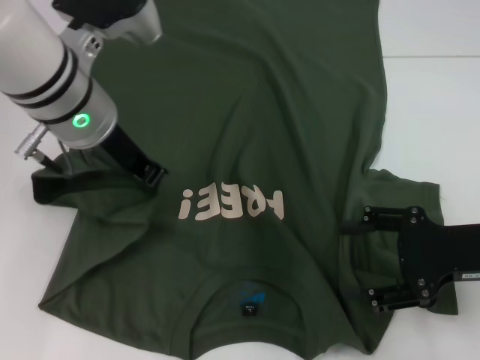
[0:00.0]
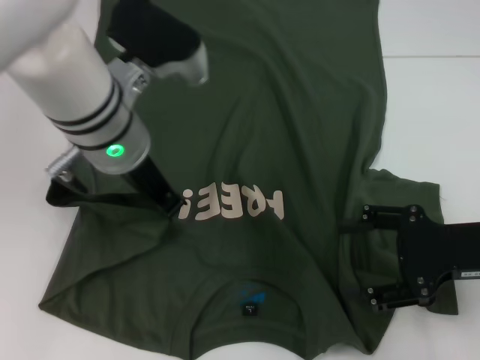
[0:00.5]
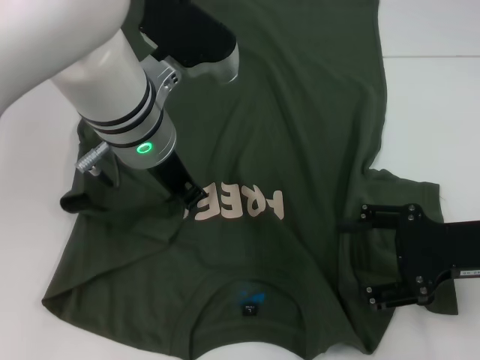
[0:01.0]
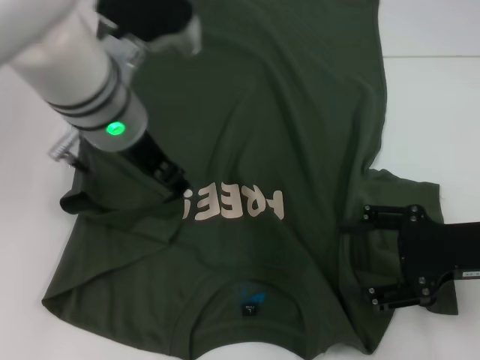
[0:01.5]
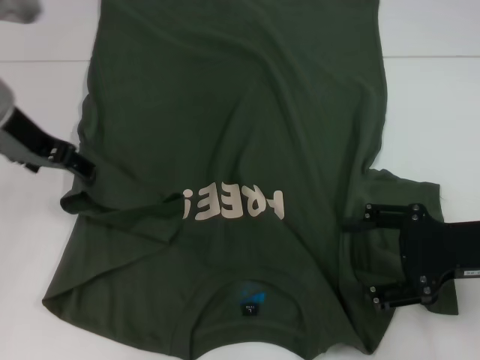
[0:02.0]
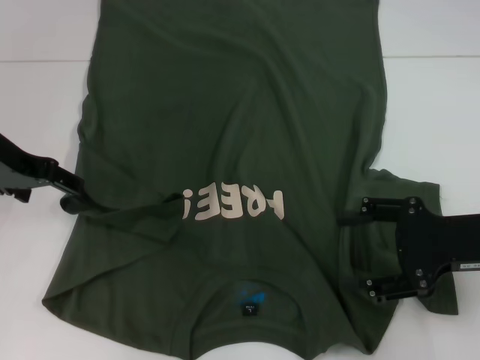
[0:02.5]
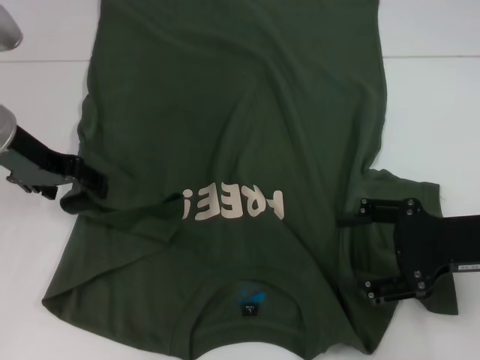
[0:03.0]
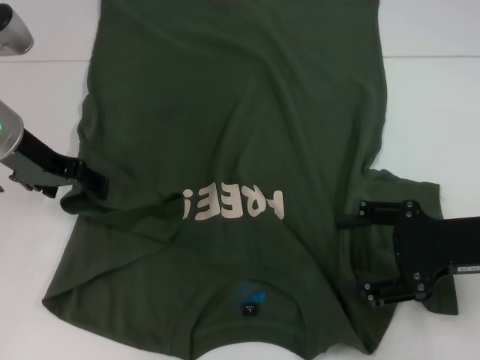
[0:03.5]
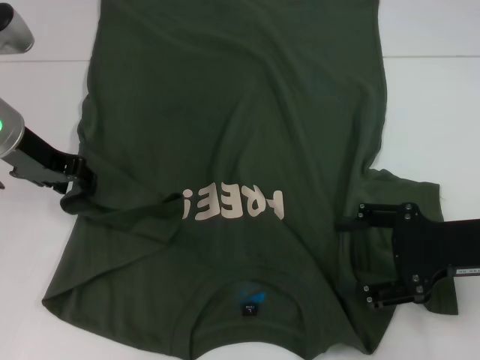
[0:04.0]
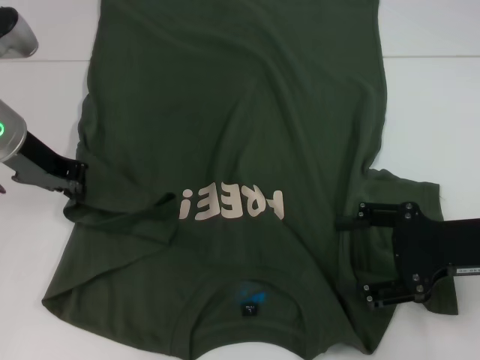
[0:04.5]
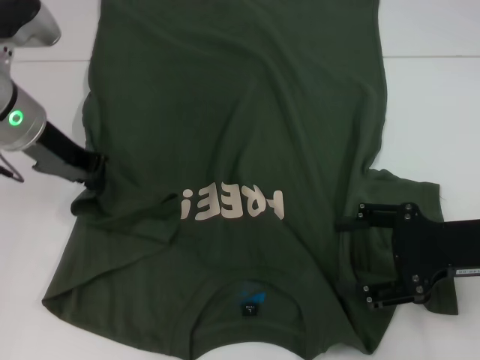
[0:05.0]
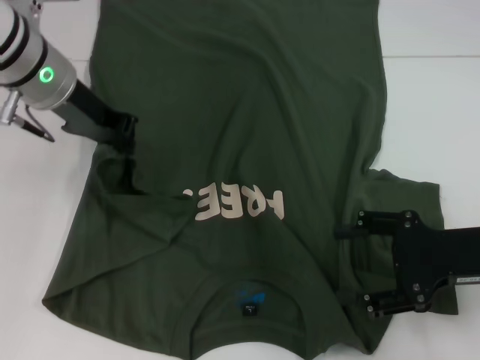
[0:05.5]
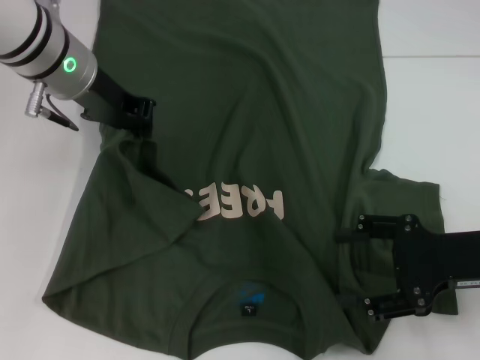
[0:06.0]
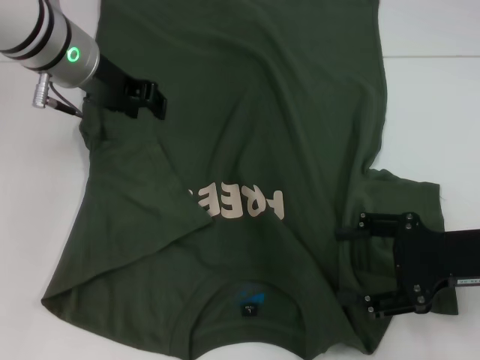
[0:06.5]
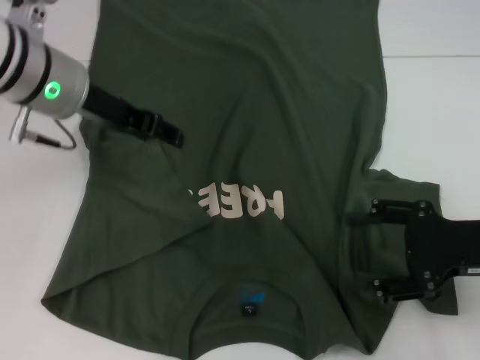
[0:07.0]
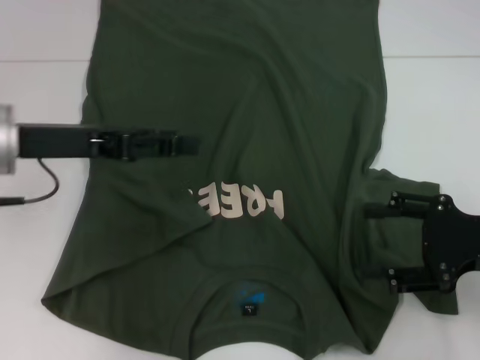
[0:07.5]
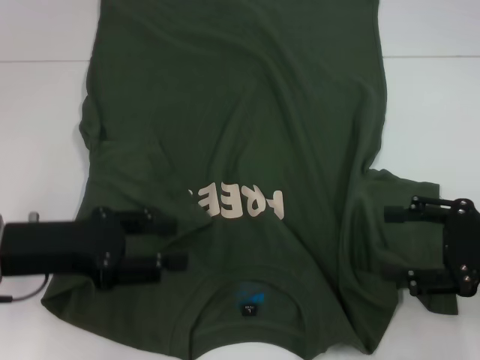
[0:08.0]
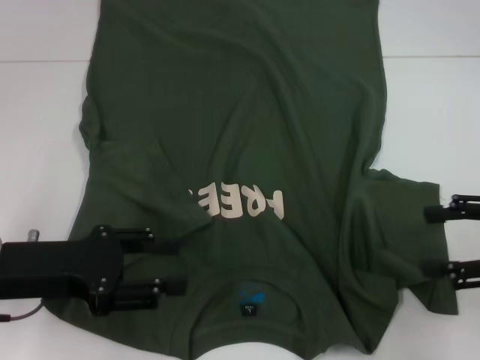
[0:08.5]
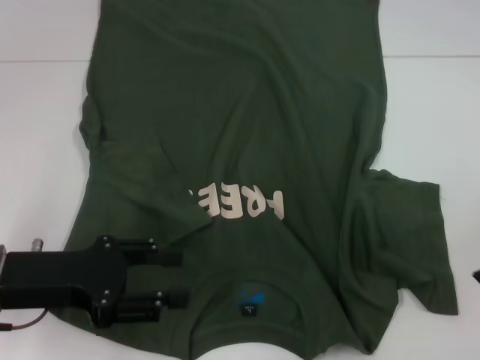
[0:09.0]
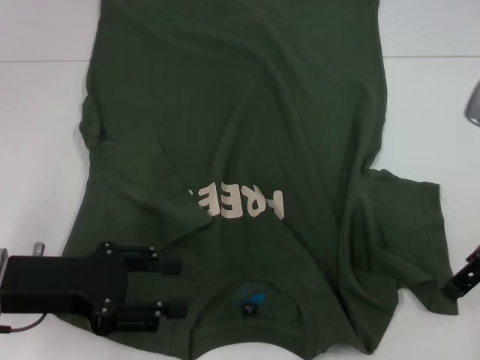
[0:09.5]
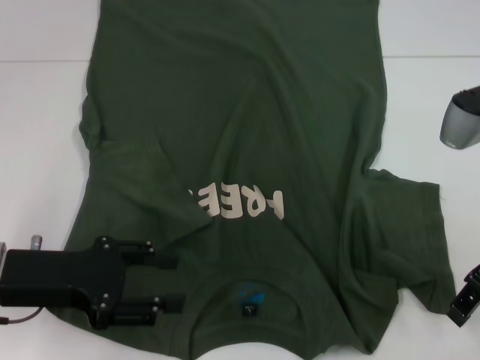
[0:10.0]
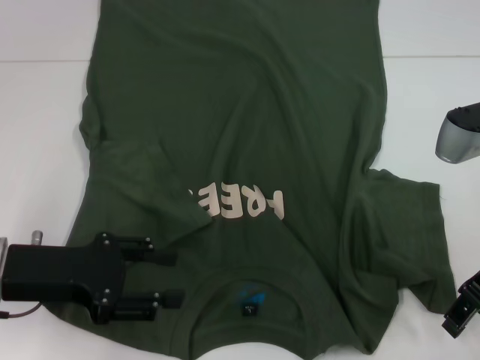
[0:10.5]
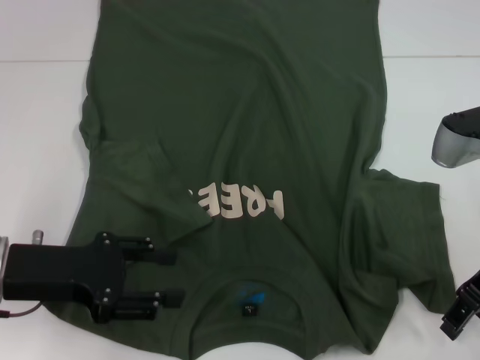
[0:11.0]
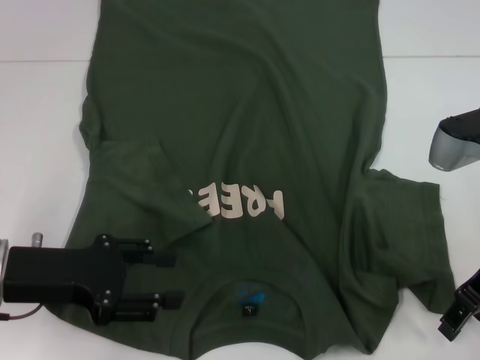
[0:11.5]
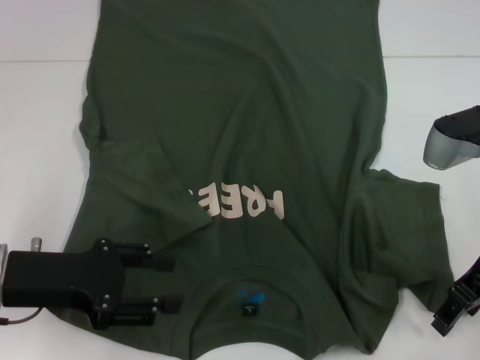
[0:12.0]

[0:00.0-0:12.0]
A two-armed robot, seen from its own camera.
Step, 0.0 to 6.5 s: Fold the bottom left sleeve with your left hand.
0.0 to 2.0 s: The left gripper moves to the left, about 10 cm, and opens up.
2.0 to 4.0 s: The left gripper moves about 5 cm.
4.0 to 6.0 s: The left gripper goes approximately 5 cm to the right, and closes its fingers.
6.0 to 8.0 s: The left gripper is displaced backward, to the left and downward by approximately 20 cm, and opens its fingers.
8.0 to 10.0 s: The right gripper is displaced forward, to the left and upward by approximately 10 cm.
10.0 to 12.0 s: The grippers move only a little.

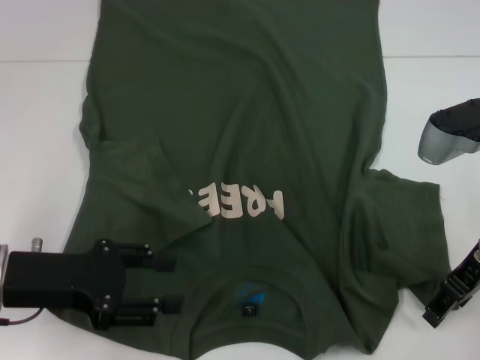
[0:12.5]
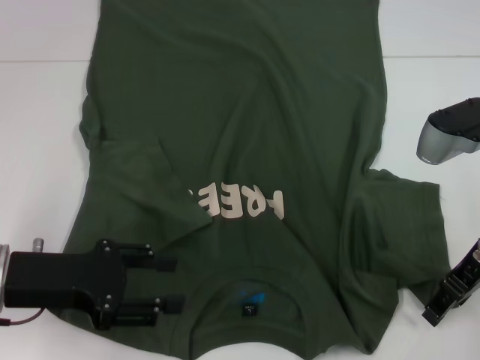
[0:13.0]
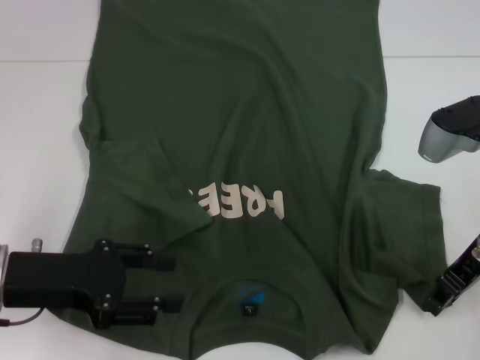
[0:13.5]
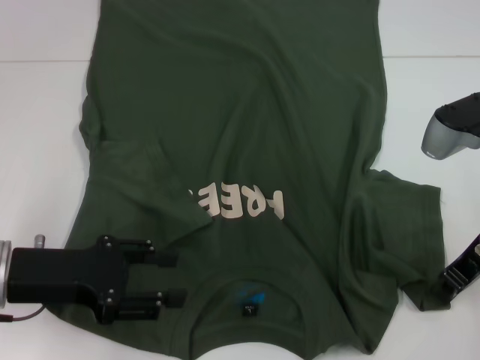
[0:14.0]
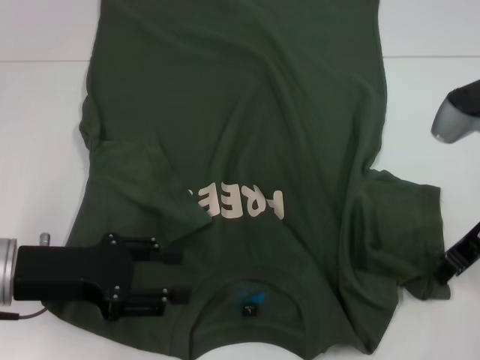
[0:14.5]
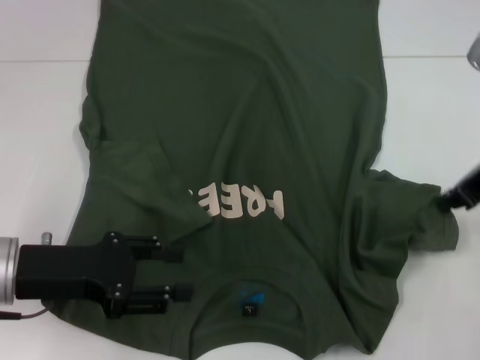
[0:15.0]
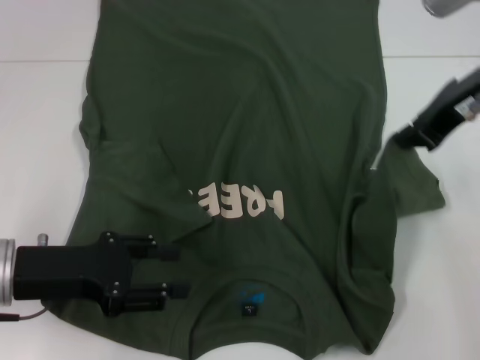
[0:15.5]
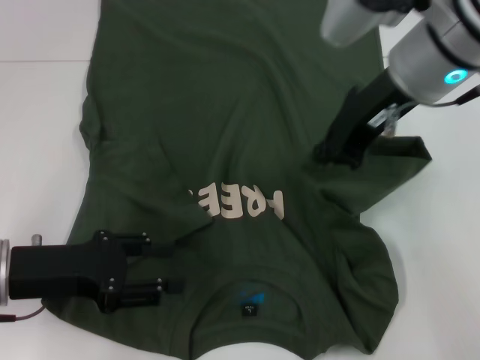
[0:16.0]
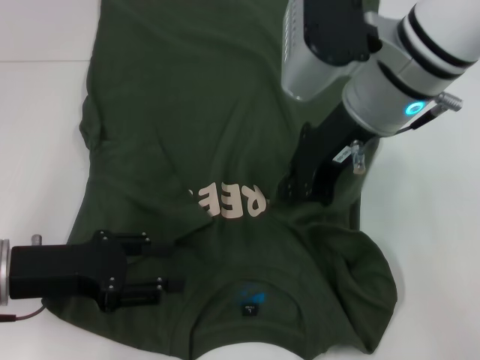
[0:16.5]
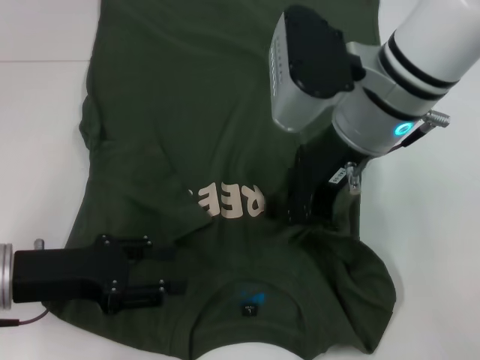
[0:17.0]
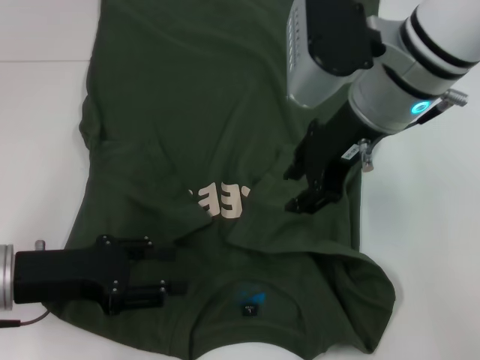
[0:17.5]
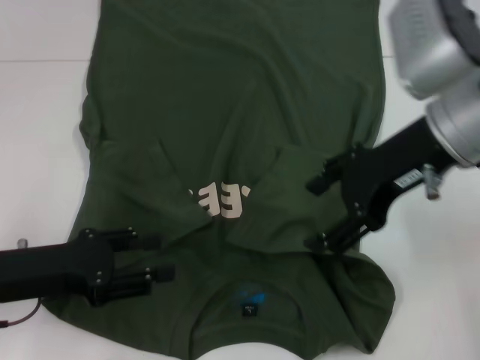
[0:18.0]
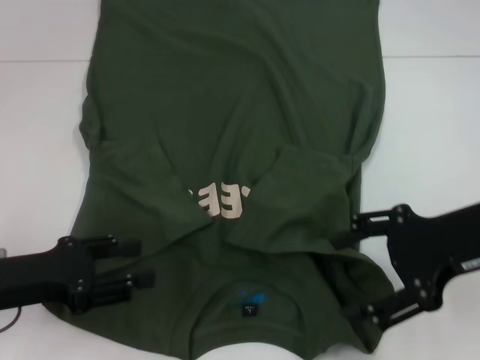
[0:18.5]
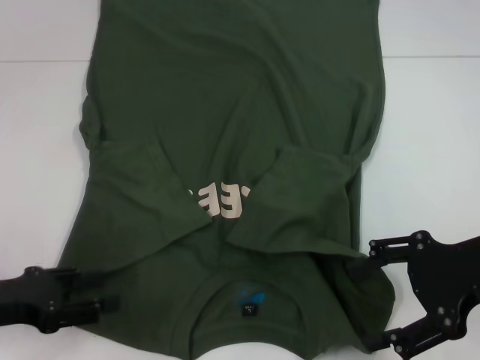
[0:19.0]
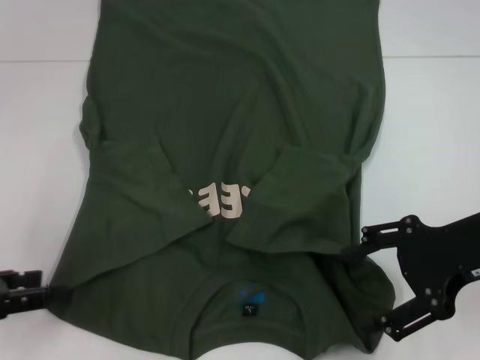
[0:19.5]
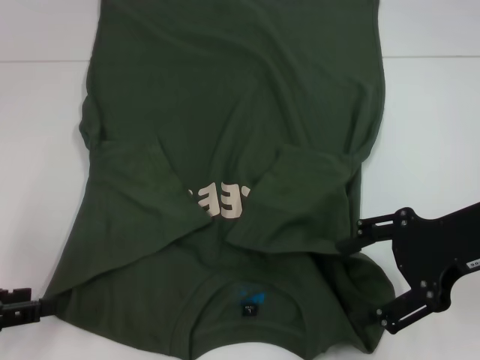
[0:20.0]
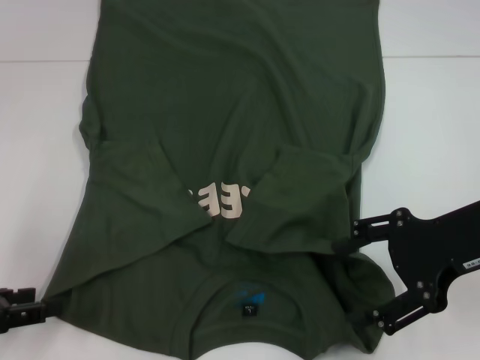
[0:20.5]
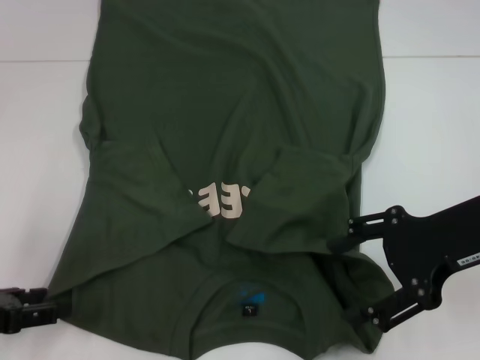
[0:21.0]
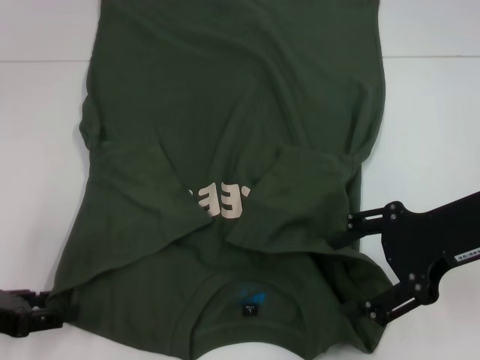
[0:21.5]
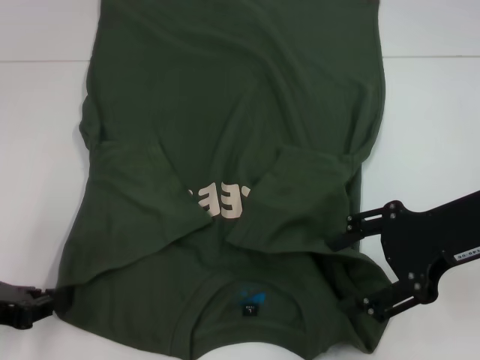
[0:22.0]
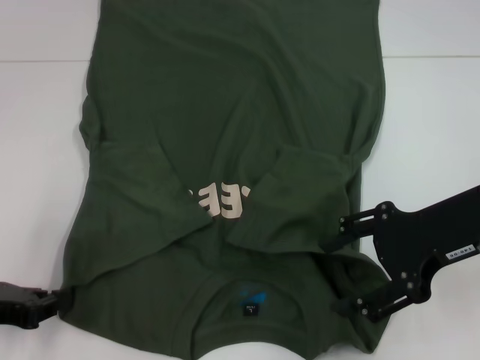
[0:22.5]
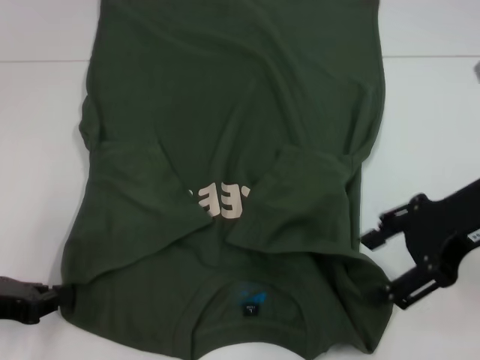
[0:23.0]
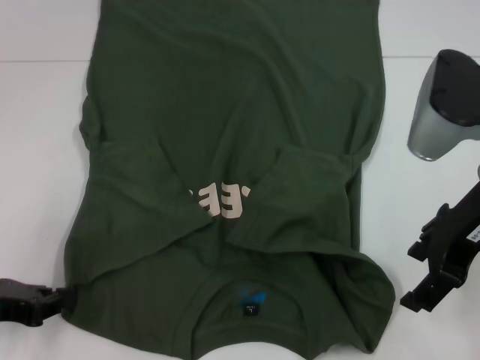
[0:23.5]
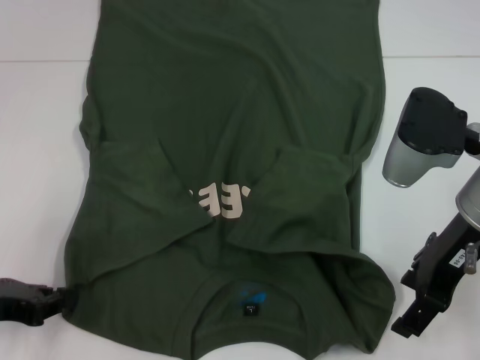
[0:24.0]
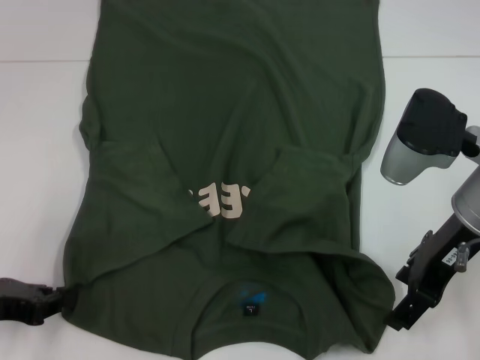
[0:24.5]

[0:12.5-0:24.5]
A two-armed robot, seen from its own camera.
Step, 12.5 to 17.5 s: Fold the bottom right sleeve with your right hand.
Step, 18.0 to 22.0 s: Grab the bottom left corner with your left hand.
12.5 to 14.5 s: The right gripper closes.
14.5 to 16.5 s: The right gripper shifts some 15 cm to the left and upward.
16.5 to 18.5 s: The right gripper goes some 15 cm to the right and backward, and opens up.
18.5 to 20.5 s: The left gripper shifts some 5 cm to the left.
20.5 to 22.5 s: The left gripper closes.

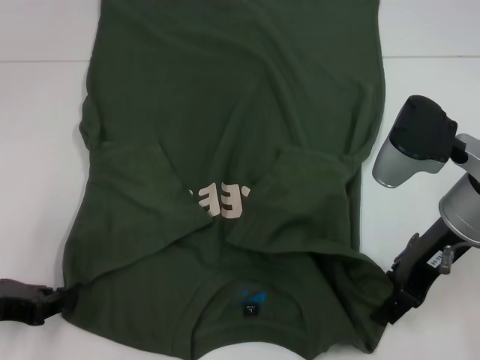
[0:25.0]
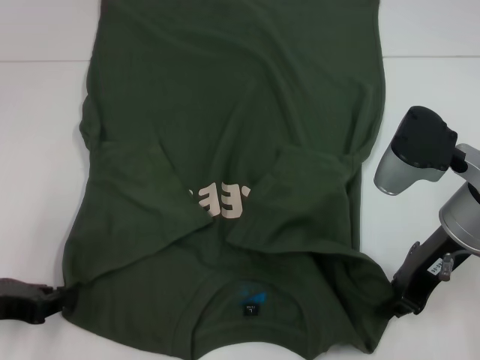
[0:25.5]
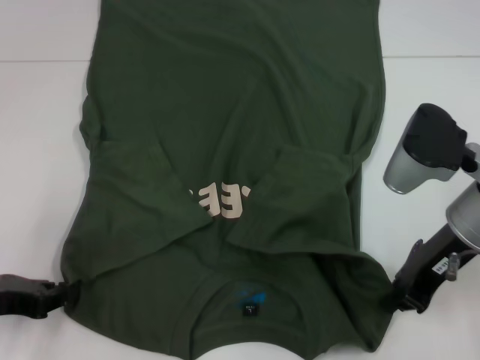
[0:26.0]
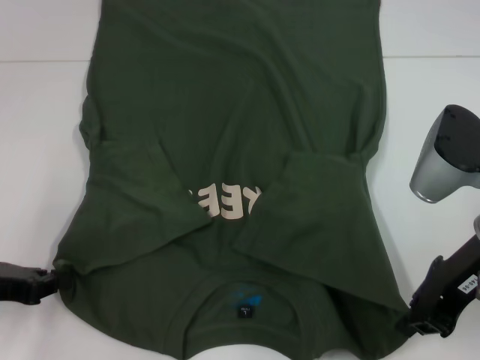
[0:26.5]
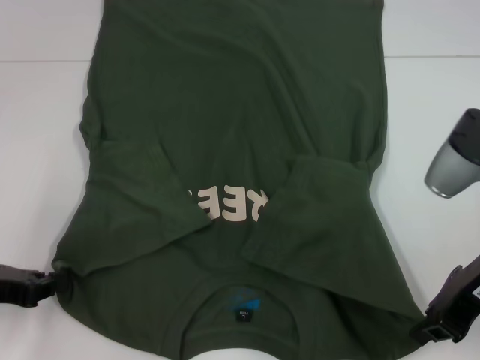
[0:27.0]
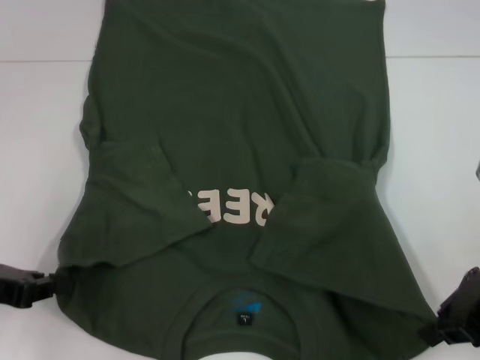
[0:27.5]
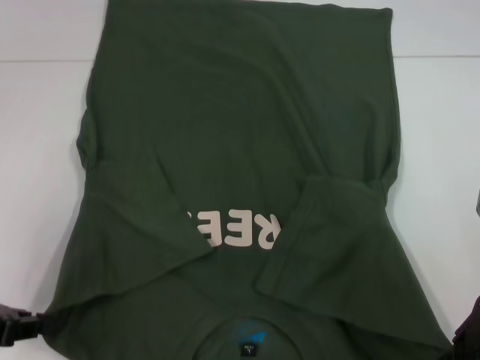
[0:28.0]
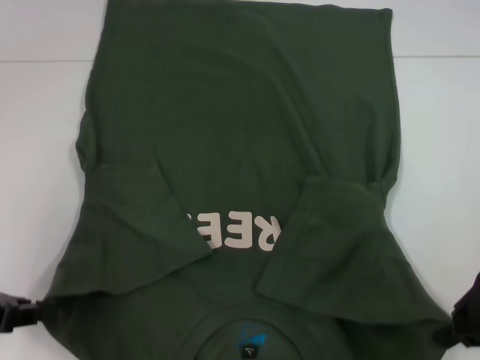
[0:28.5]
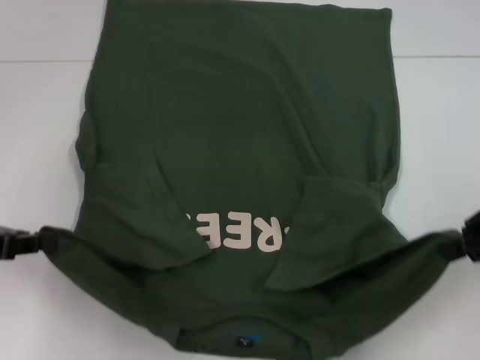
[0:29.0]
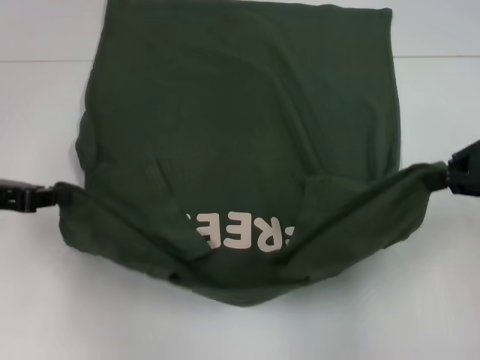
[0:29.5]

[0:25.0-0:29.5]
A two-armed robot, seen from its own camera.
25.0 to 27.0 s: The right gripper closes.
27.0 to 29.5 s: The left gripper shifts about 10 cm upward and forward; the right gripper goes some 10 cm to the right and upward.
